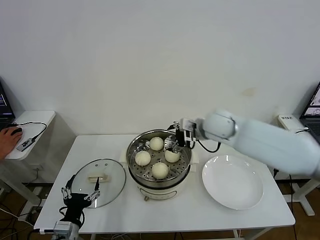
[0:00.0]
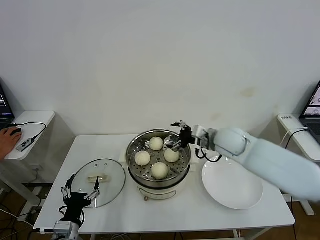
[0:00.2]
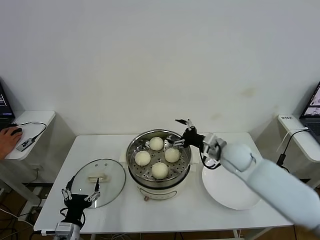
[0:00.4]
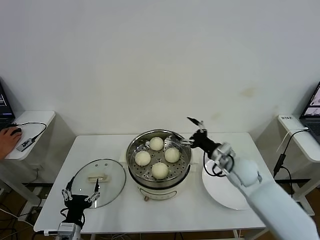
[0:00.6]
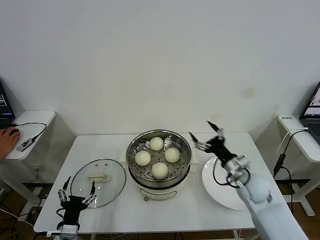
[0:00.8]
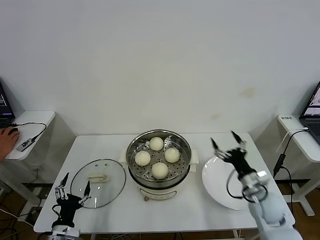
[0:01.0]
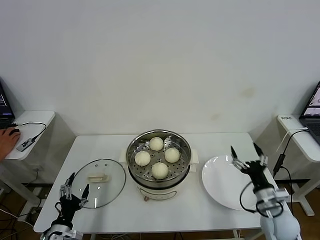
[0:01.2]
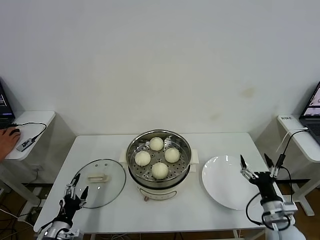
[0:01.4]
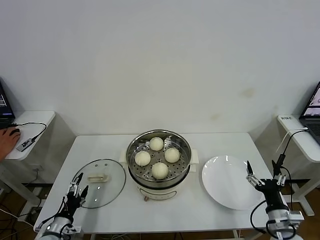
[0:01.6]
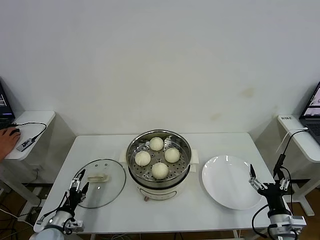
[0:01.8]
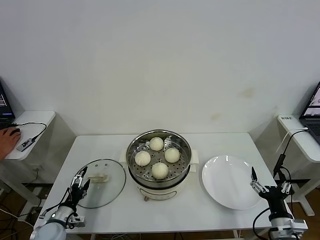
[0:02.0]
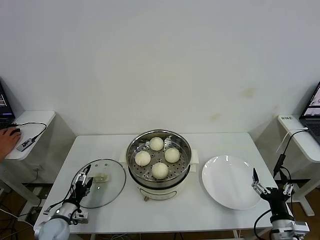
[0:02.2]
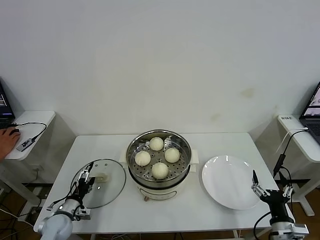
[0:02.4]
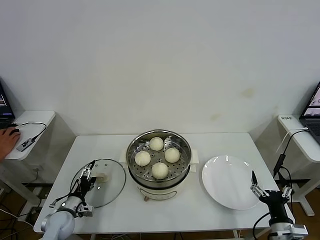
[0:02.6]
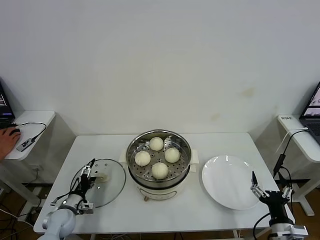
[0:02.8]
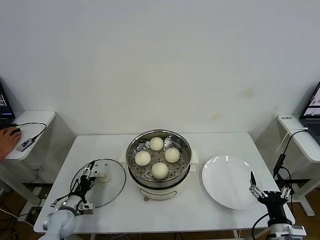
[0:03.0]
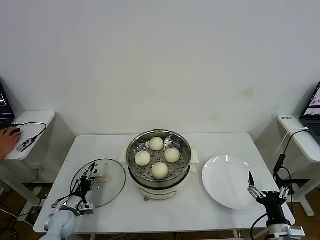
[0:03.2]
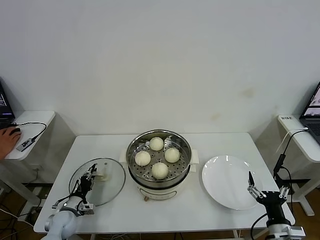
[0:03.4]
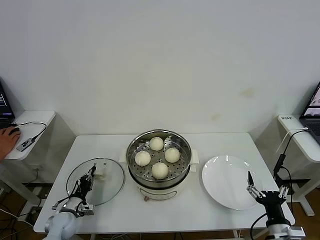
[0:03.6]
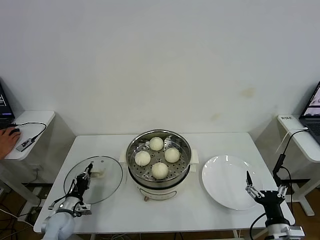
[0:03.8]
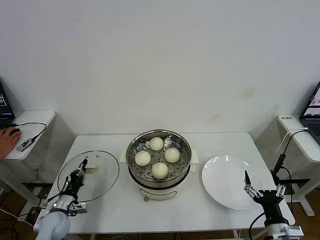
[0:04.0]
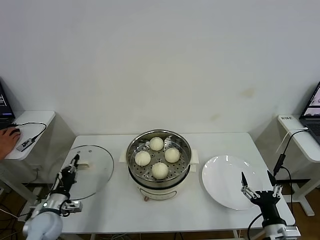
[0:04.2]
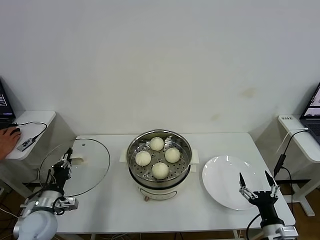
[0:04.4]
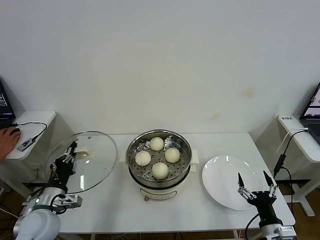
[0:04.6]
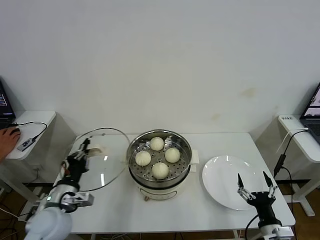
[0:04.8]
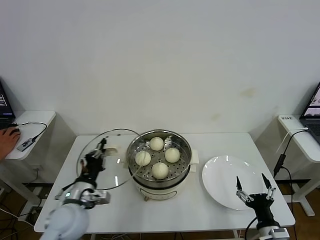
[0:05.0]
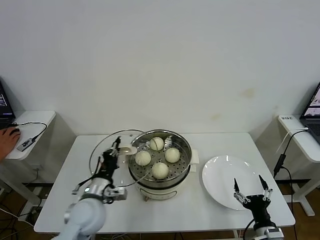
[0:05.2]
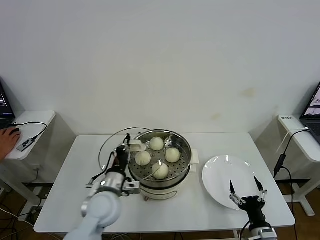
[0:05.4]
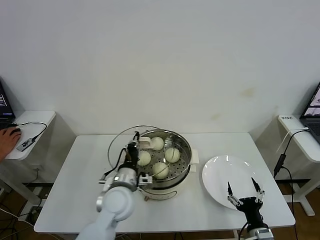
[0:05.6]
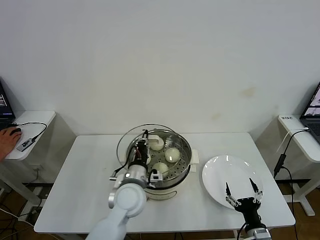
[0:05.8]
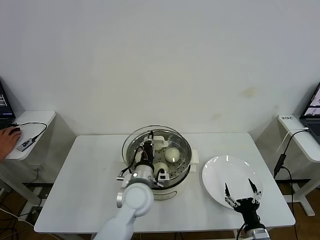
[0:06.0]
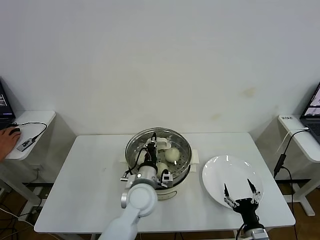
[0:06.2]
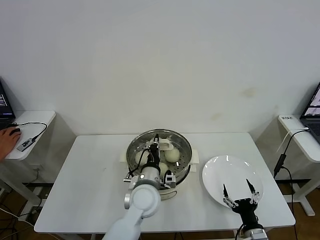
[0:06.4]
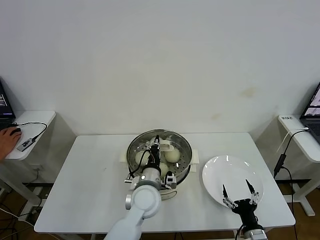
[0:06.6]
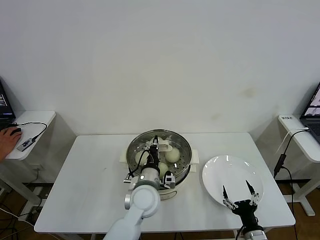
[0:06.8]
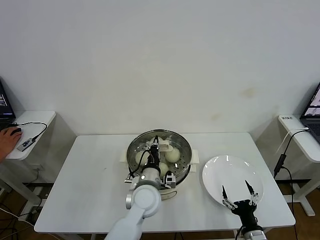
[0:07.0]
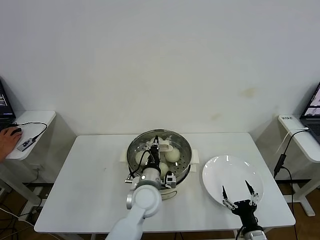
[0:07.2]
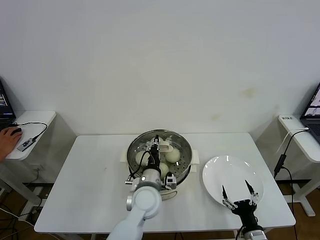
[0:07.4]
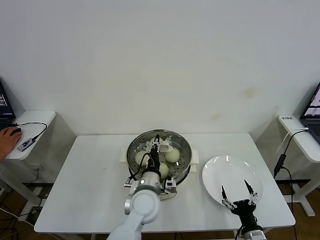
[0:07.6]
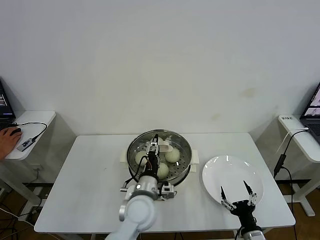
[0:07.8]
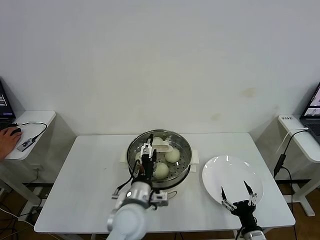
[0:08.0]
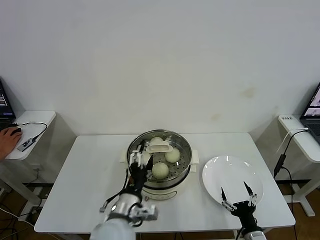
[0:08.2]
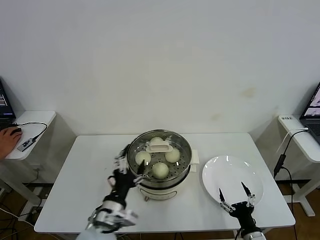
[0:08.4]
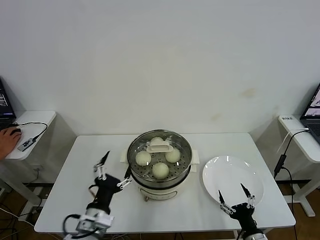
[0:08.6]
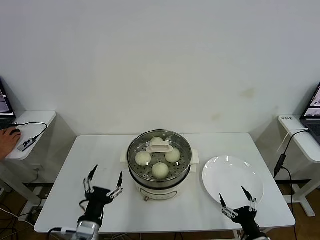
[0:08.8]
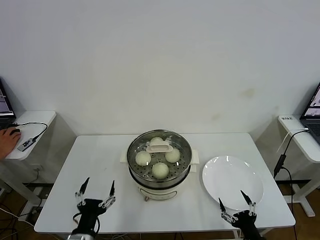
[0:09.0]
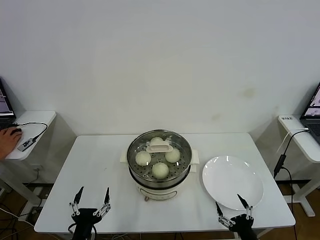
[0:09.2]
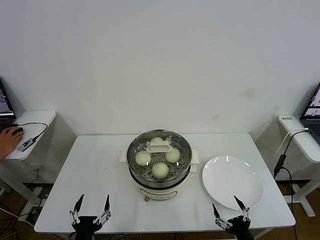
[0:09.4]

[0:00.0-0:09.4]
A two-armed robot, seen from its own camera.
Task of the whole recording: take steamed baozi put them in steamer then cover it.
Step, 0:00.0 to 0:03.8: Grasp the pot lid with left gripper.
Step, 0:04.0 to 0:07.6: Place the pot lid on the steamer with left gripper.
0:00.0 to 0:01.6: The right gripper moves backward, downward and to the right, some 40 cm. Meanwhile the left gripper goes roughly 10 cm to the left and downward.
0:01.6 to 0:03.2: The left gripper shifts about 10 cm forward.
0:03.2 to 0:04.8: The left gripper heads upward, covering about 20 cm, and closes up.
0:04.8 to 0:06.2: The right gripper shifts by some 5 cm. Meanwhile the left gripper goes some 25 cm to the right.
0:06.2 to 0:07.8: The left gripper opens its fingers.
0:07.8 to 0:09.4: The left gripper travels backward and to the left by approximately 25 cm, and opens.
